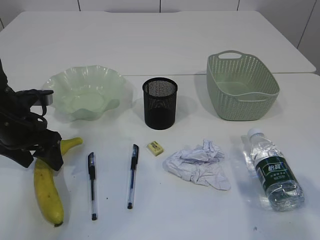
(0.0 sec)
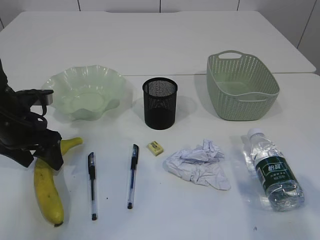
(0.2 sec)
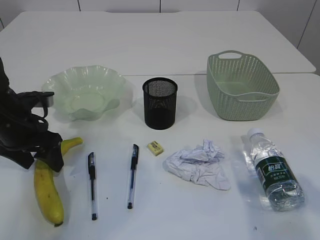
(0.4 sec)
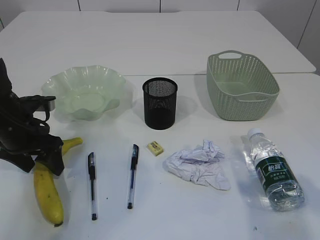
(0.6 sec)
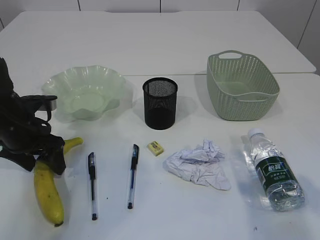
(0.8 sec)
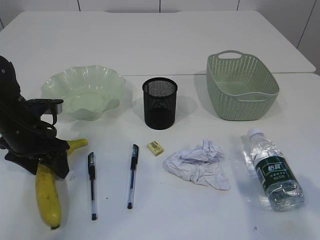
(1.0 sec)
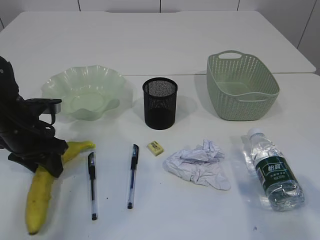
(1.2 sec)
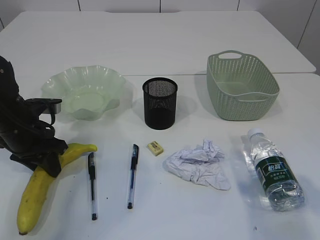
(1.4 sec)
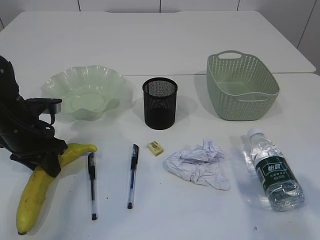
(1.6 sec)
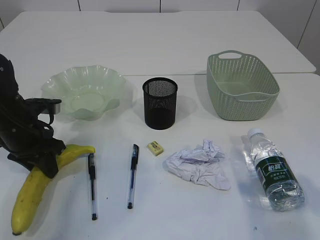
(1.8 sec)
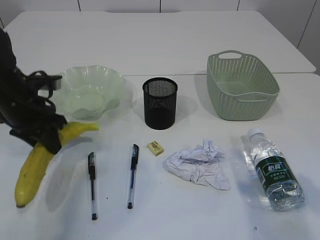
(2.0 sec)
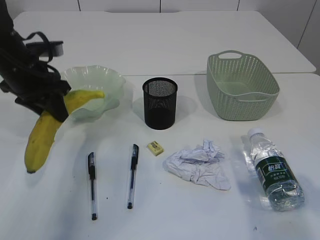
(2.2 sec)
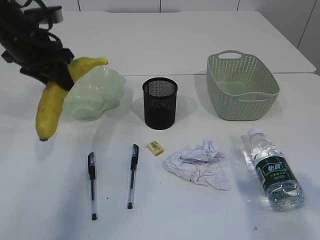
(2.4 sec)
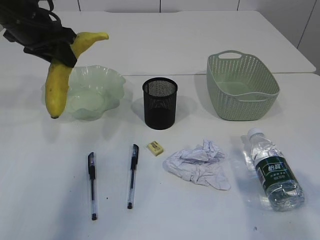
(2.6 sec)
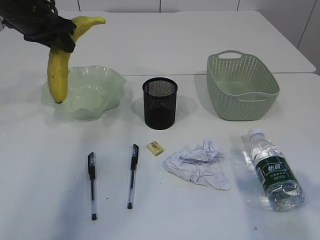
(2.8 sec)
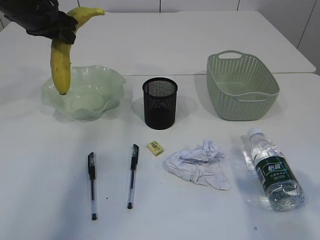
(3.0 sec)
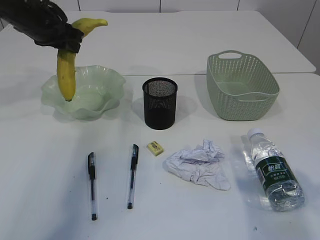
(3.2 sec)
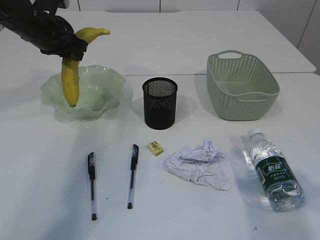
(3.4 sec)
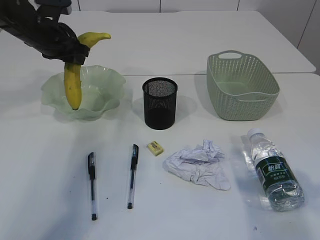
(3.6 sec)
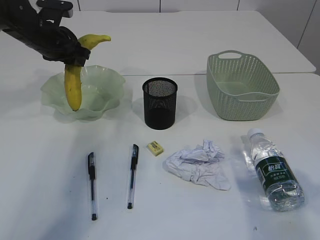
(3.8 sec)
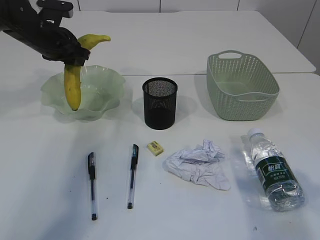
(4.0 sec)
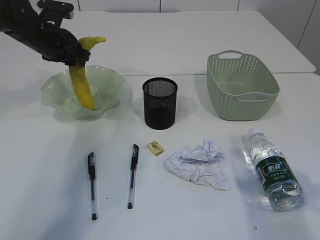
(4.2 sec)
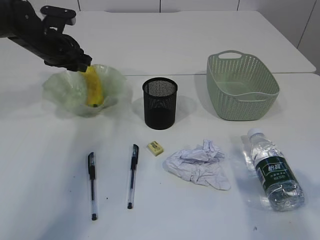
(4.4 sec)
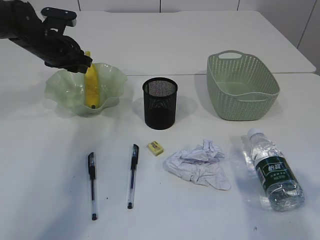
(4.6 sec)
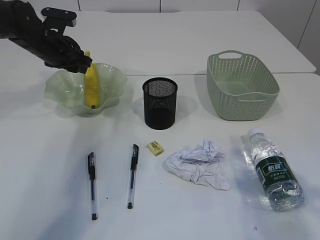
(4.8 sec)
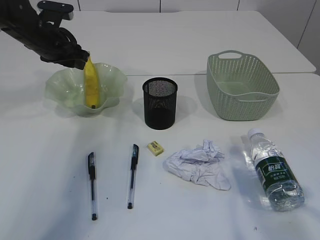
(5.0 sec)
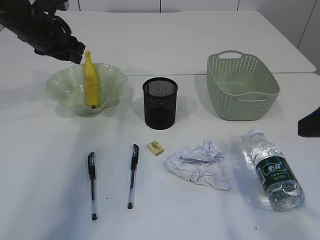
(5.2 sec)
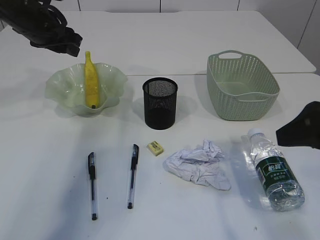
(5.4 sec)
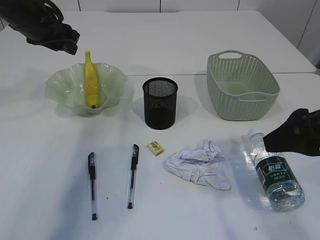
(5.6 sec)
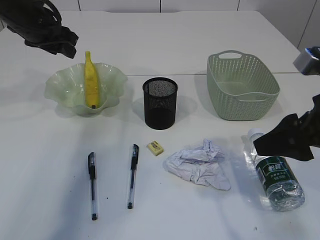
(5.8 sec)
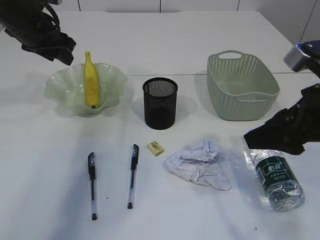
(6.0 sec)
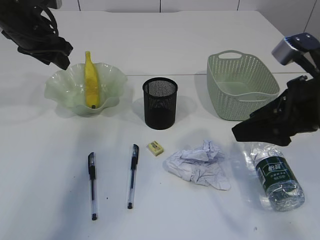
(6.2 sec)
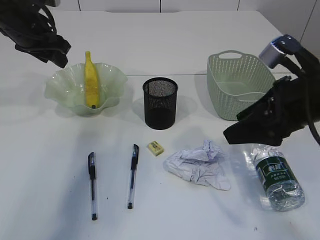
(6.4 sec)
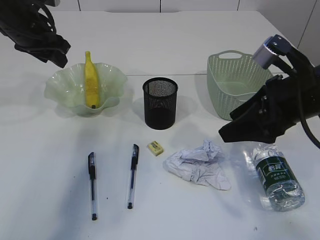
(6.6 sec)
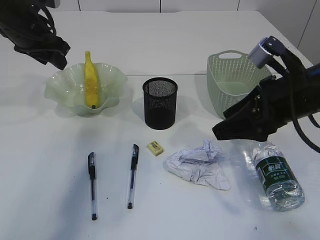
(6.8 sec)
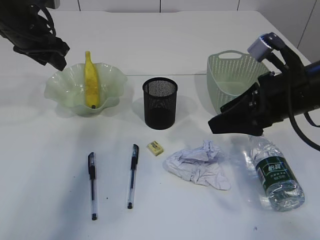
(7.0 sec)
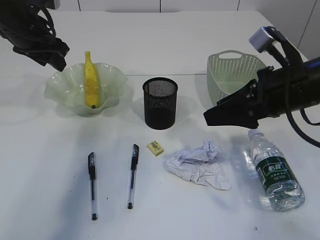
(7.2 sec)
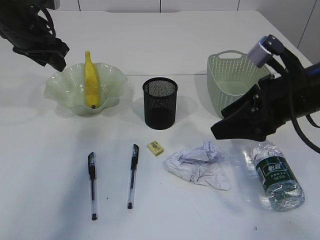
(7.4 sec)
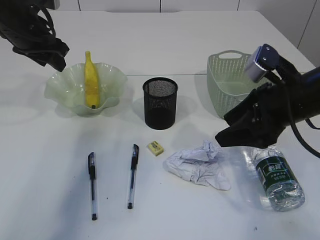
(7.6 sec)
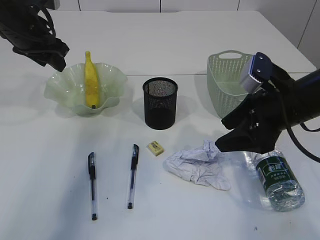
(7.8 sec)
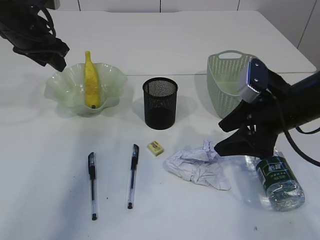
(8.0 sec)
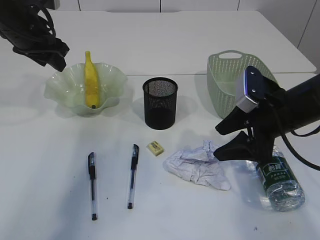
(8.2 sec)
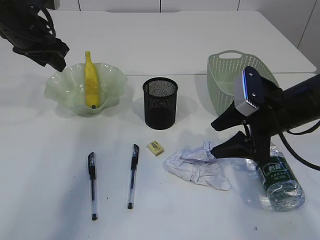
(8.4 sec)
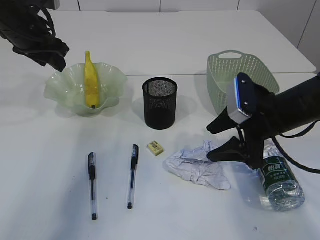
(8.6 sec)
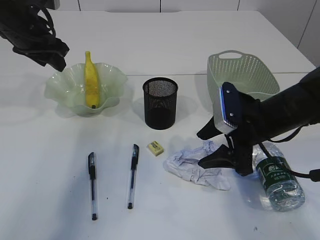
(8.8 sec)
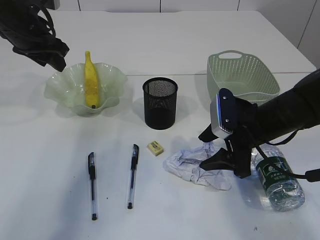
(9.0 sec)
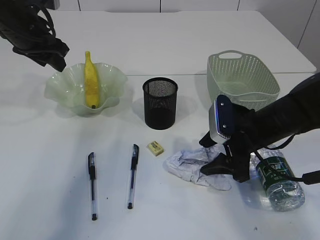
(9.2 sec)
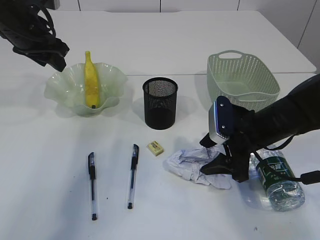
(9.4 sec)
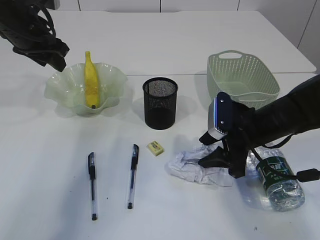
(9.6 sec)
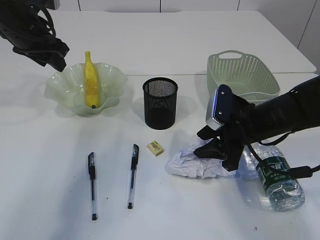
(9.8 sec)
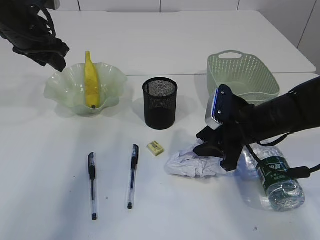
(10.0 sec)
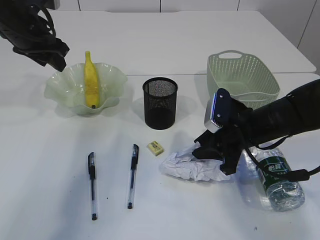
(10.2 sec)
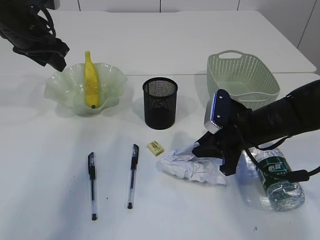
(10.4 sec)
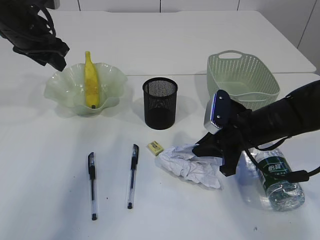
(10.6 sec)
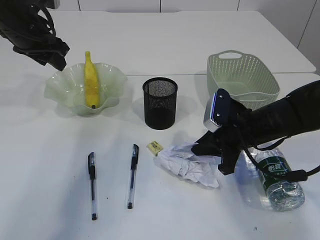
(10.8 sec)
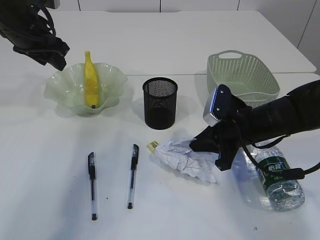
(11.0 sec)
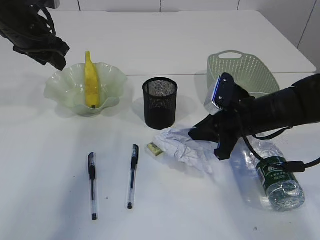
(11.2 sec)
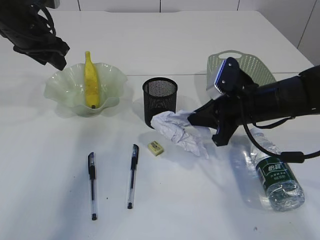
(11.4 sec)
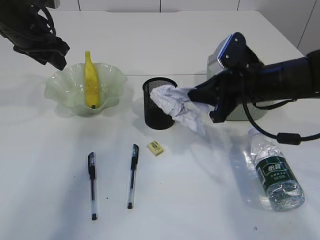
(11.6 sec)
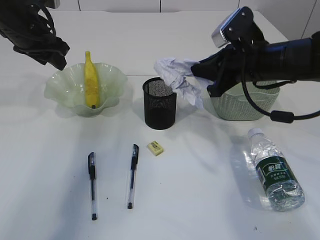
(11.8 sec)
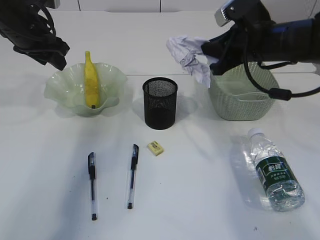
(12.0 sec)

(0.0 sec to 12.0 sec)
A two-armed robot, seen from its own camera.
Step, 2.2 sec - 5.2 sec: Place the banana in the plate.
Step, 5.4 sec - 11.2 sec: Pick up the waste paper.
0.0 sec - 1.6 sec: The left gripper closes.
1.6 sec - 3.0 sec: The left gripper heads upward and forward, covering some 20 cm.
3.0 sec - 4.4 sec: The left gripper goes about 10 cm downward.
4.4 sec - 6.0 sec: The left gripper is displaced upward by approximately 5 cm, while the right gripper goes some 10 cm forward and to the left.
6.0 sec - 7.6 sec: The right gripper goes about 5 cm forward.
7.6 sec - 9.0 sec: The right gripper is displaced downward by roughly 10 cm.
9.0 sec - 10.4 sec: The right gripper closes.
10.4 sec - 12.0 sec: The right gripper moves upward and forward, some 15 cm.

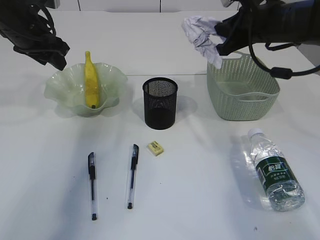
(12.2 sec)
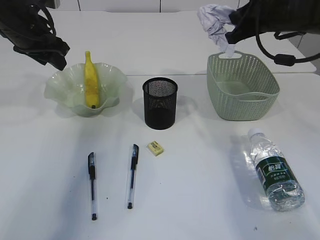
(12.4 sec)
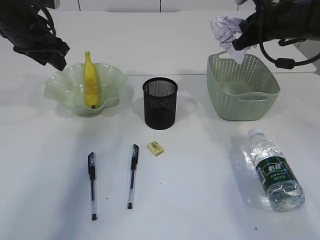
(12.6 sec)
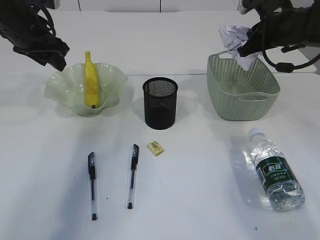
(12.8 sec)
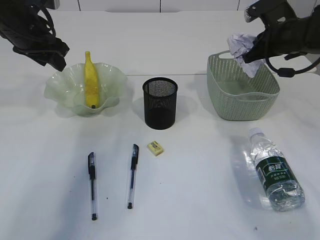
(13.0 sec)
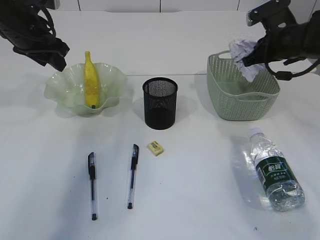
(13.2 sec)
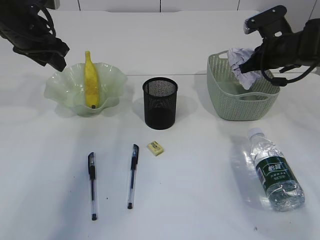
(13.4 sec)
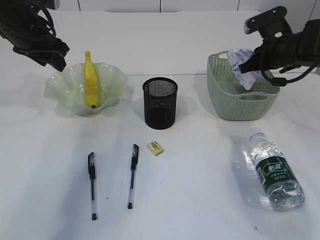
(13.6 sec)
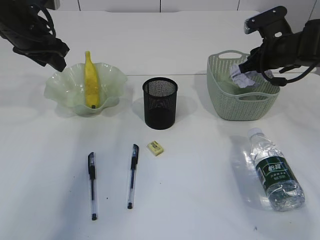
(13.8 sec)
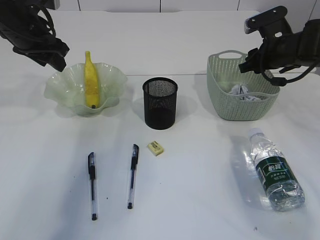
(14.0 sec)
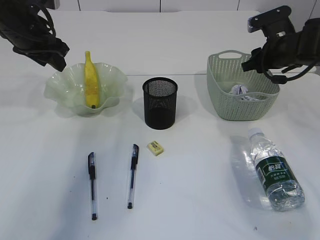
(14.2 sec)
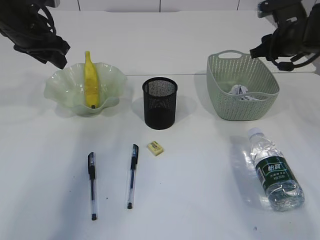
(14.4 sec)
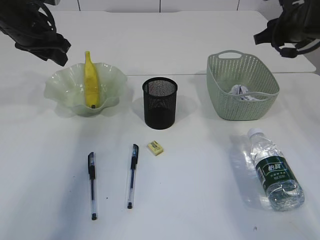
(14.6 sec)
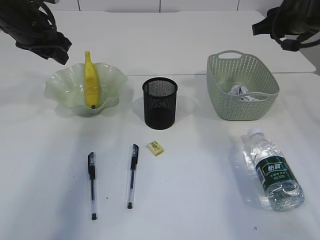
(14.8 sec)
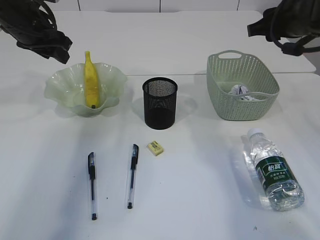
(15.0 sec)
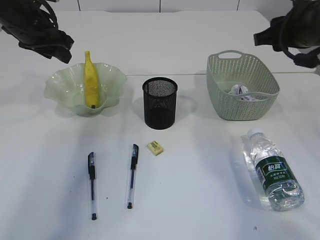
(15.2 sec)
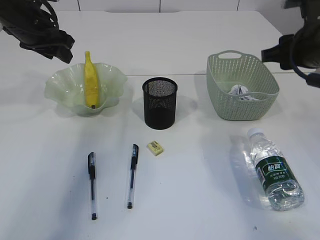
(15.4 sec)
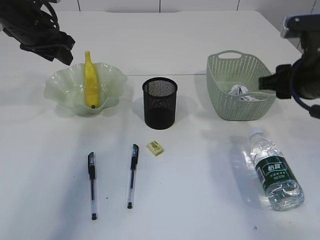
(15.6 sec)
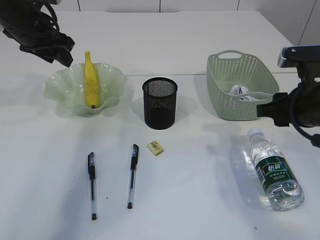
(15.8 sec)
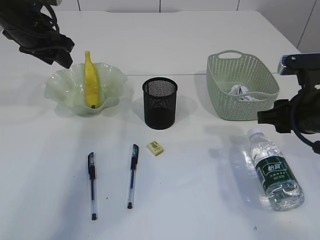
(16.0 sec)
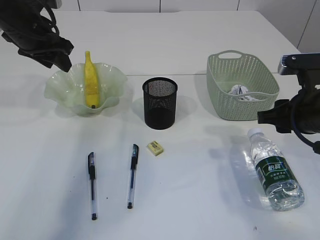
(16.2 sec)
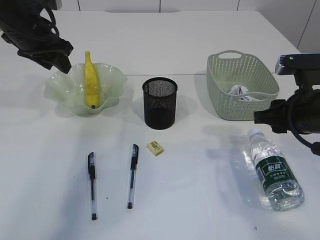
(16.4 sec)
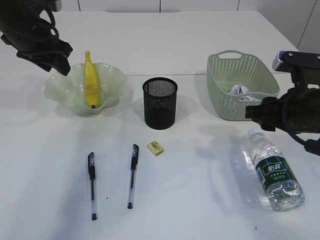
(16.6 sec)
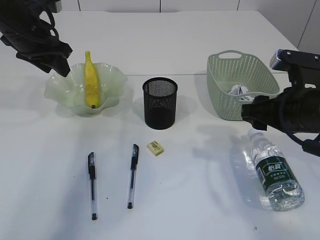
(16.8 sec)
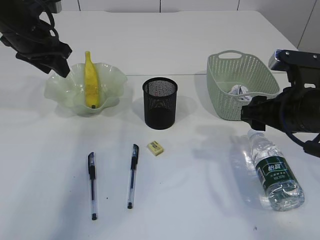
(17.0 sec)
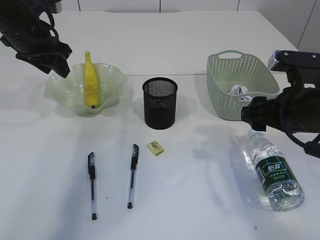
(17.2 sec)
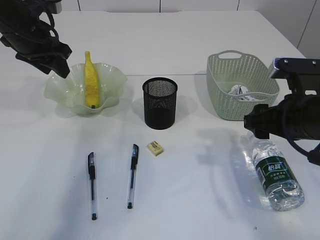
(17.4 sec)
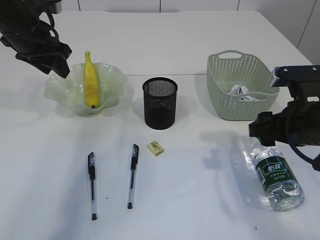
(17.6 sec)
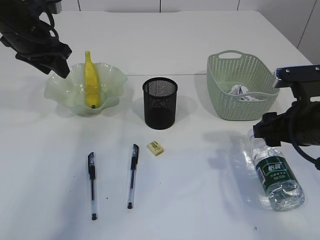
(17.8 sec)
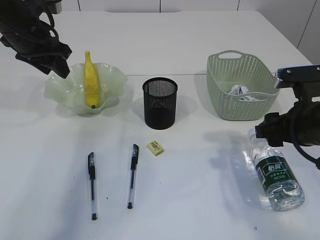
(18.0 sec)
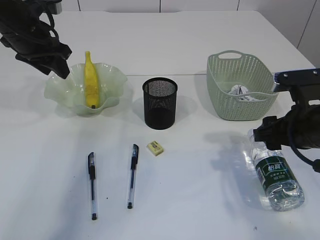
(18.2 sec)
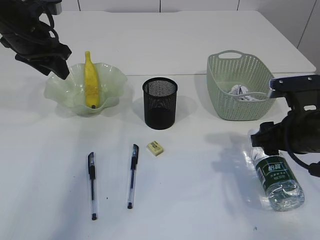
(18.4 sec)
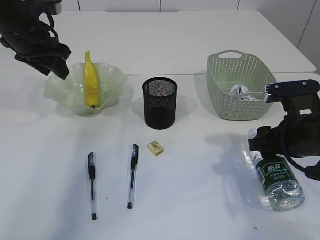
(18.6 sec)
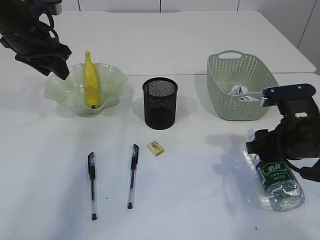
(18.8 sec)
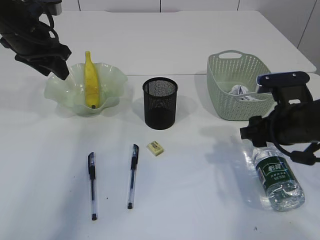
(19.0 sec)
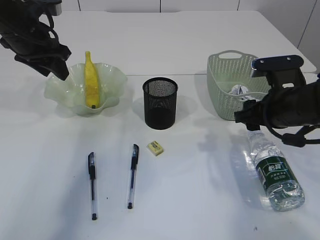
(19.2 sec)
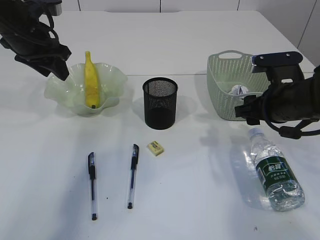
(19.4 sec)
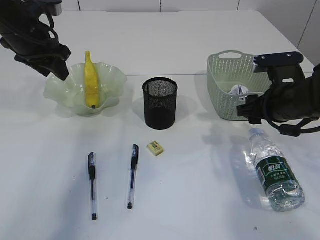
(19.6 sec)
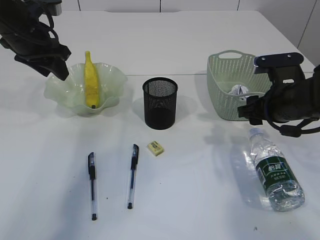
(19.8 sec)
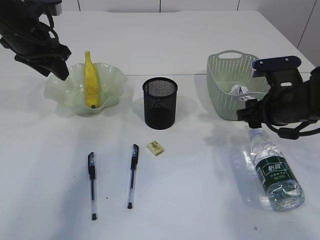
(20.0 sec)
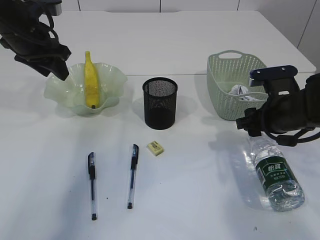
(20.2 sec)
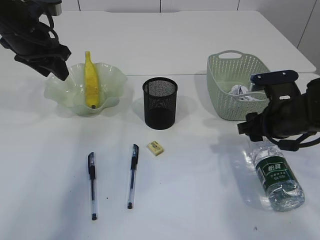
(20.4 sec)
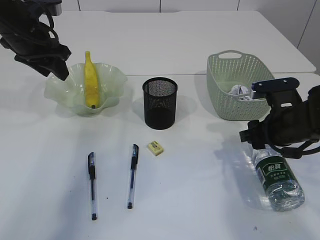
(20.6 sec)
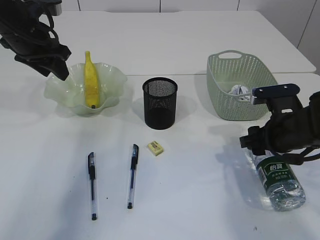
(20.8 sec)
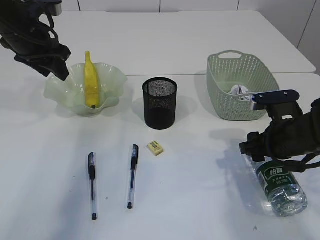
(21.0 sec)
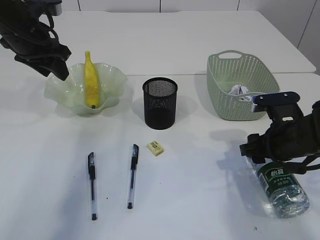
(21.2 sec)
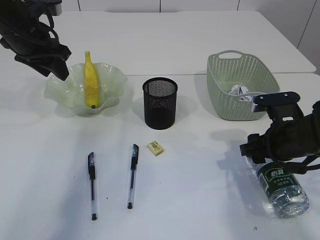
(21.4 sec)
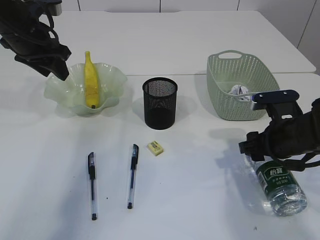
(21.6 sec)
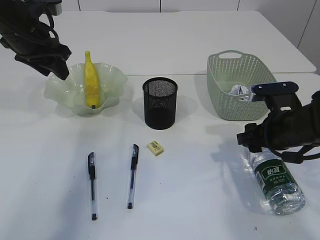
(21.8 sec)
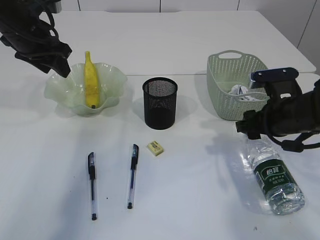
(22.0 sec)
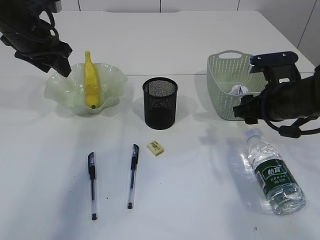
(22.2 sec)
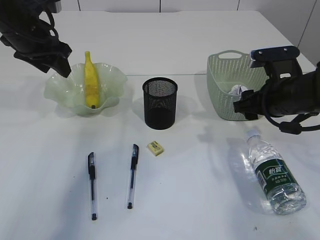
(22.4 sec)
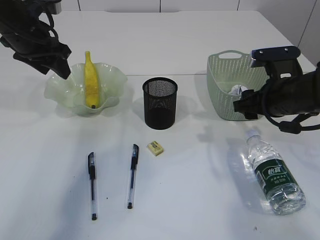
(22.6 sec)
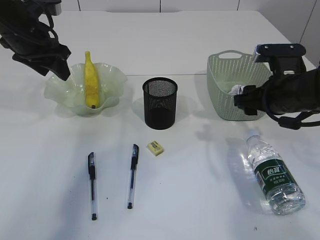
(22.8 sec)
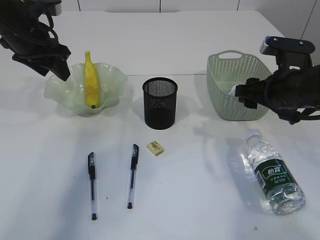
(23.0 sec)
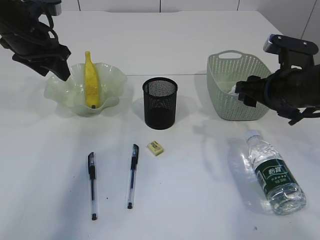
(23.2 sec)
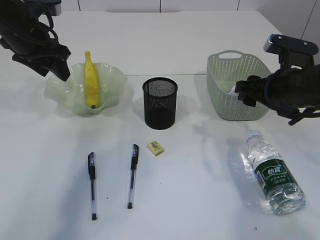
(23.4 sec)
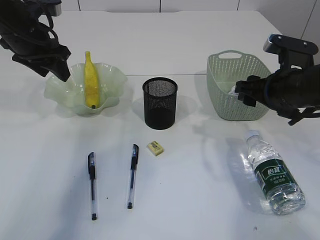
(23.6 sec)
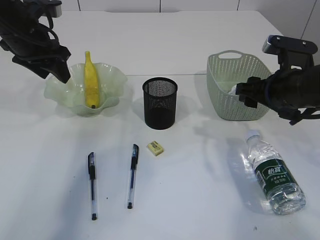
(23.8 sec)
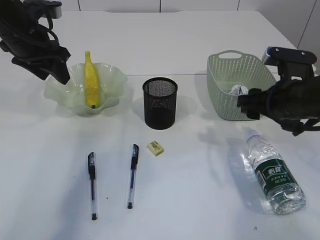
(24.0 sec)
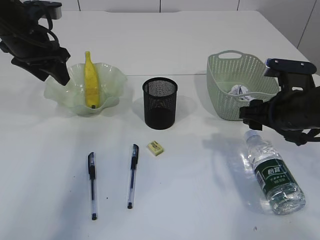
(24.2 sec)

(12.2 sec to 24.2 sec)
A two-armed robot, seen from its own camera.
Step, 12.2 sec - 14.2 sec: Place the waste paper in the basket.
12.2 sec - 13.8 sec: The right gripper travels downward, to the right and forward by roughly 10 cm.
13.8 sec - 15.2 sec: The right gripper heads backward and upward, covering roughly 15 cm.
15.2 sec - 16.6 sec: The right gripper is displaced downward and backward by about 10 cm.
16.6 sec - 18.2 sec: The right gripper opens up.
18.2 sec - 19.8 sec: The right gripper moves forward, approximately 5 cm.
19.8 sec - 21.2 sec: The right gripper shifts some 5 cm downward.
21.2 sec - 22.6 sec: The right gripper shifts roughly 5 cm upward.
22.6 sec - 24.2 sec: The grippers move only a little.
